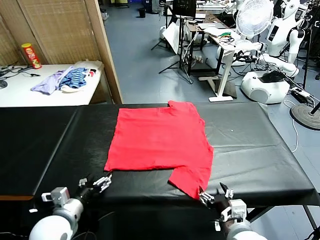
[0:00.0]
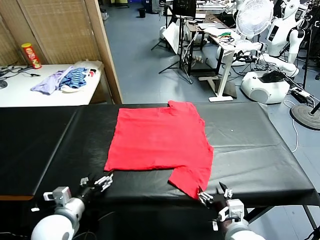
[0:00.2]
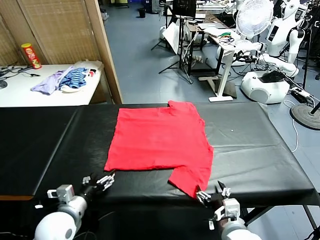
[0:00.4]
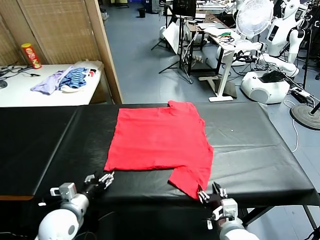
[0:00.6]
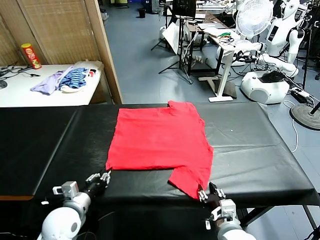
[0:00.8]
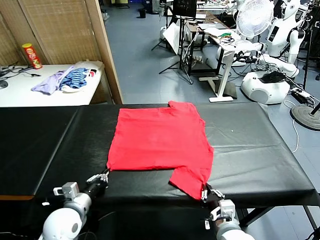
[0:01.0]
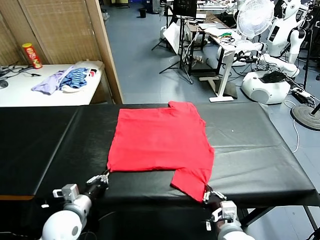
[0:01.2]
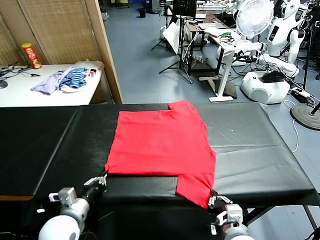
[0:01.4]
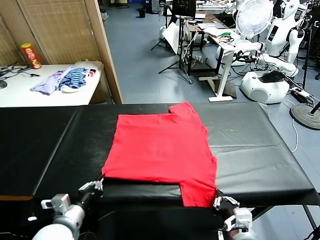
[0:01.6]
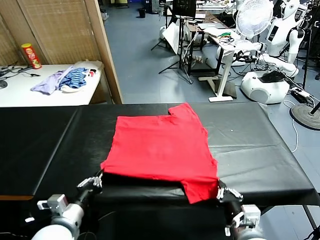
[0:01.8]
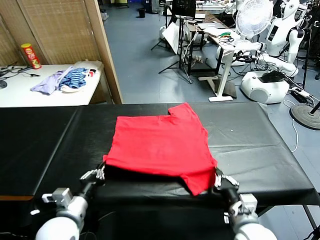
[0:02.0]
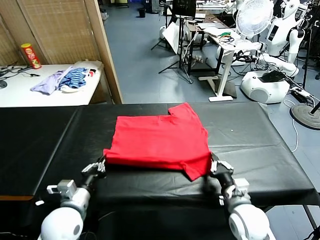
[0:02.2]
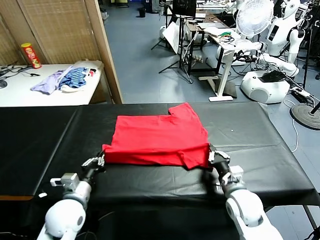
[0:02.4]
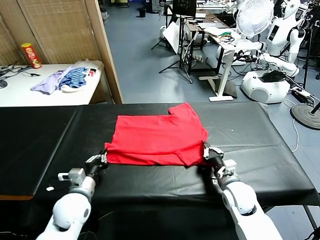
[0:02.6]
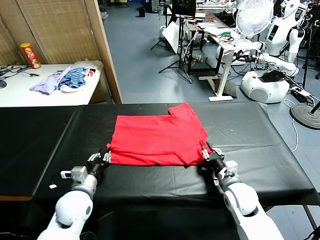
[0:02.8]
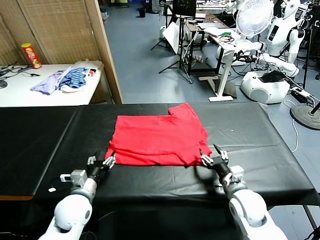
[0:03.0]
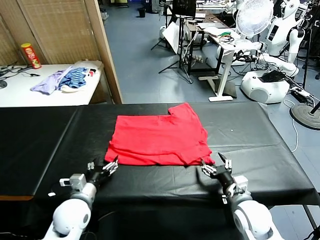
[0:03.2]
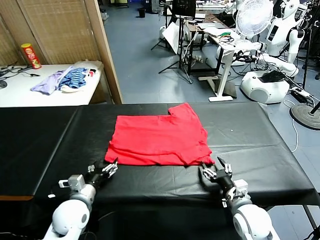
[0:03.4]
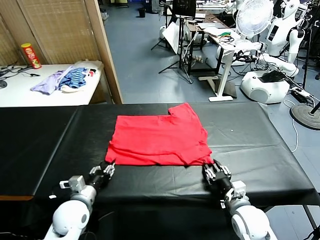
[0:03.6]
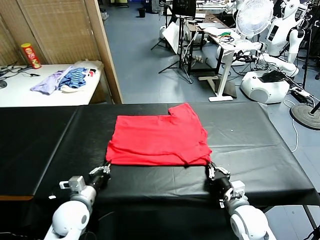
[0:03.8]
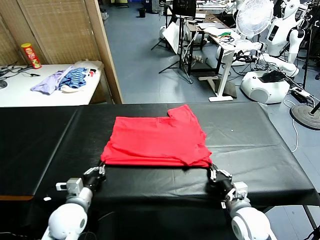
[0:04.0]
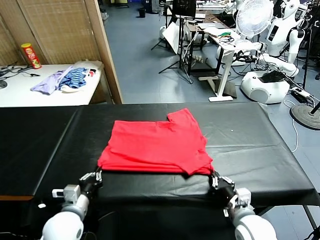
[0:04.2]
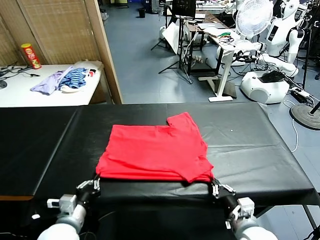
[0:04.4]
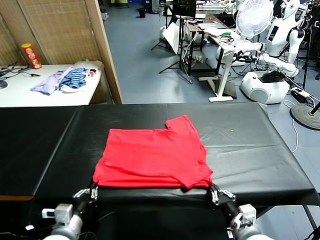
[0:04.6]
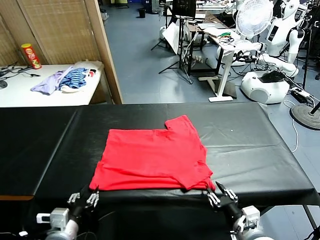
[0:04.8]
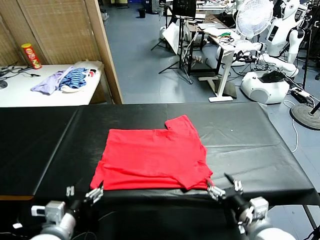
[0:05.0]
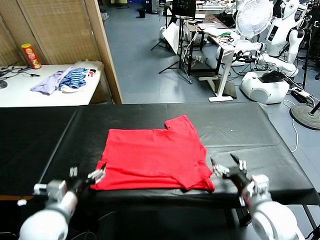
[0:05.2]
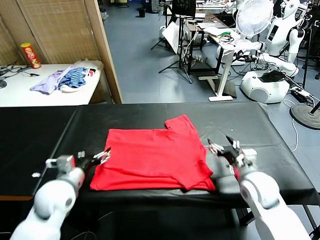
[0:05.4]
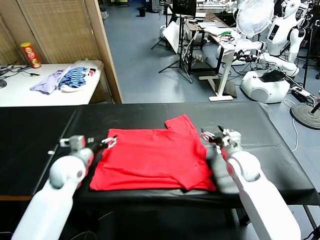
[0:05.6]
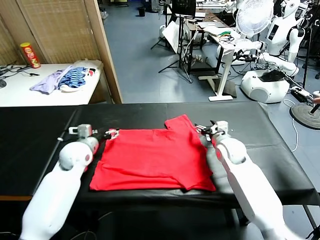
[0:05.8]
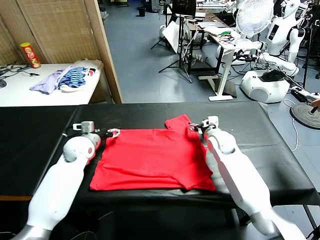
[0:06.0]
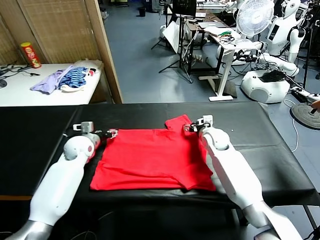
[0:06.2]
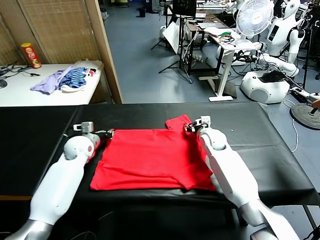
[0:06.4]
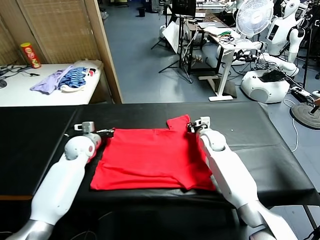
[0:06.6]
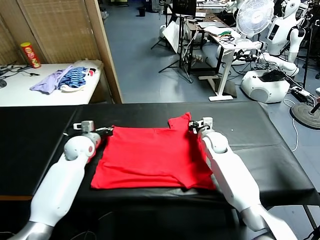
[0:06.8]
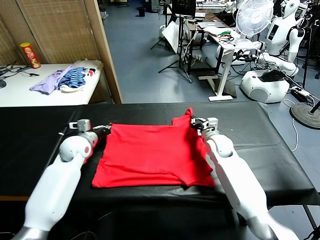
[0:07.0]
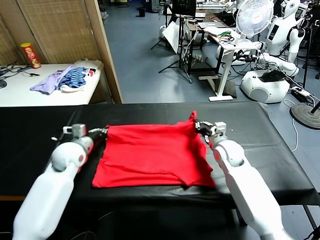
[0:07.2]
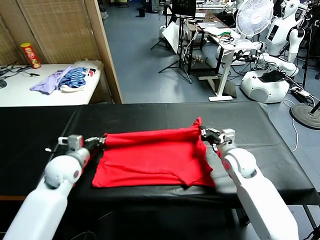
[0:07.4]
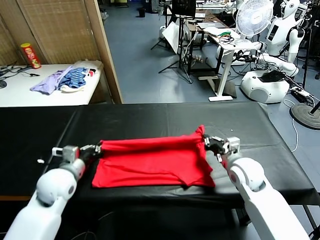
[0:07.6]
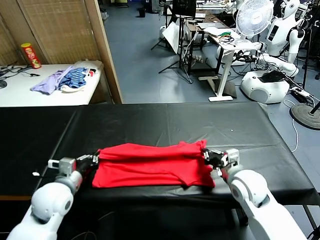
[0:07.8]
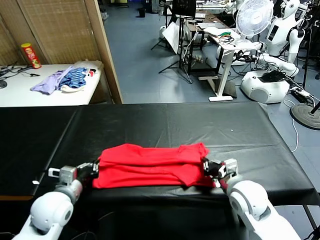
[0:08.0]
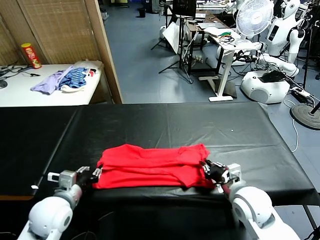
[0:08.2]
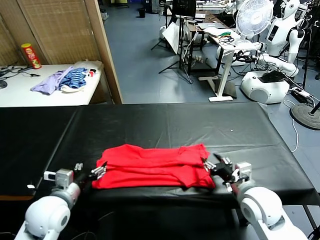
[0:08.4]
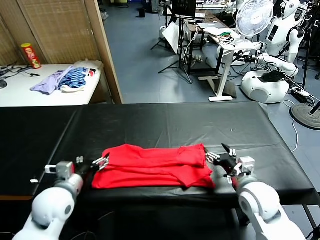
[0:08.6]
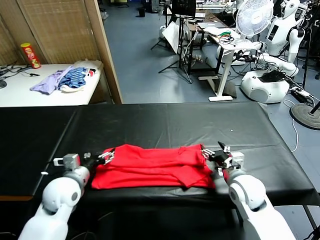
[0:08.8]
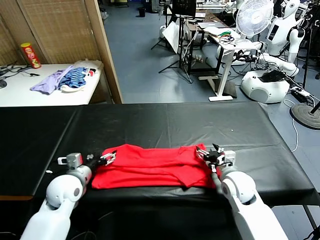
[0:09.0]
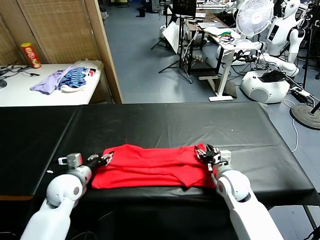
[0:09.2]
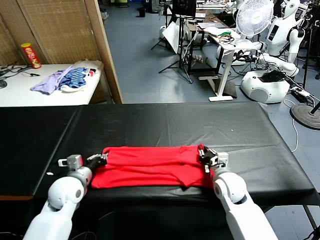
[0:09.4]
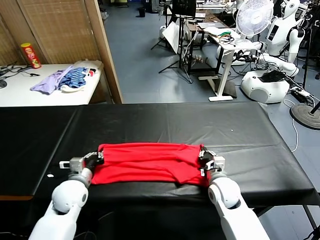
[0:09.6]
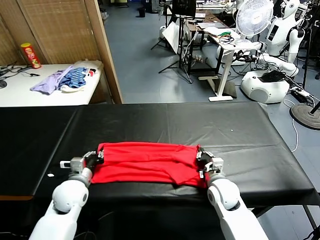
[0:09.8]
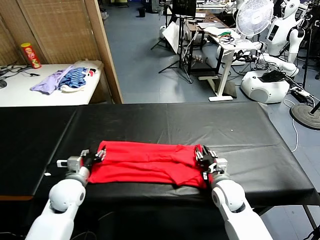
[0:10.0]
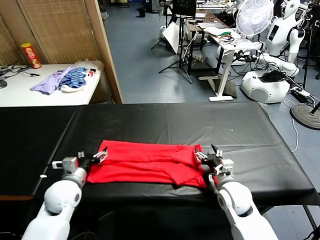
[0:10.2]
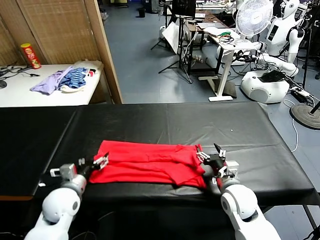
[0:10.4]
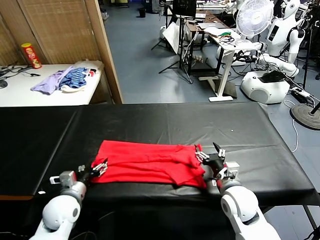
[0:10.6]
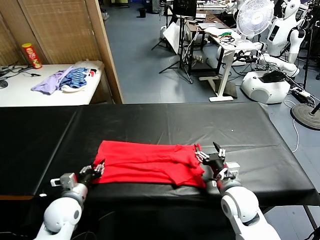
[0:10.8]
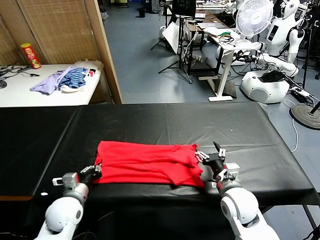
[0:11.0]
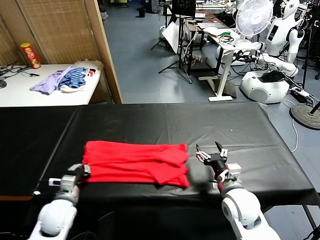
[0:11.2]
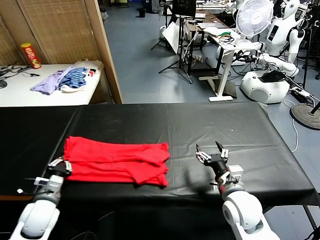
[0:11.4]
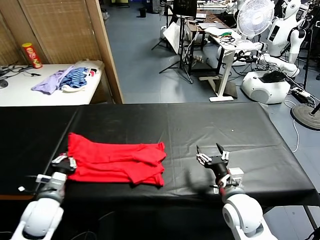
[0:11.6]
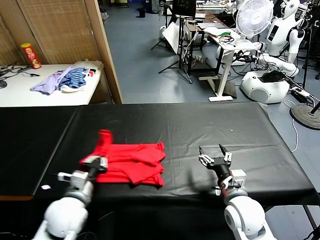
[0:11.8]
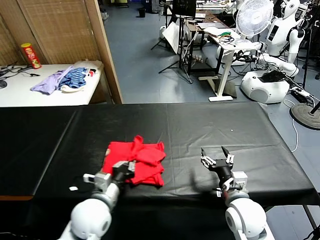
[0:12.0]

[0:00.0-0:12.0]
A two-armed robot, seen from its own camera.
Task of the whole recording: fold and organize the clothes.
Step, 0:00.0 to 0:01.4: use both grippers simultaneously to clamp the lower edge of the clothing fabric.
Step, 0:01.6 to 0:03.0: use both grippers to drag the lower edge of the fabric forward and fold it over the upper edge.
Step, 0:03.2 to 0:04.8: Drag the clothes downward with both gripper.
Step, 0:05.0 to 0:06.8: use both grippers simultaneously to clamp the upper edge of the clothing fabric.
Step, 0:07.0 to 0:08.4: use both grippers to drag the upper edge of the fabric backward and fold it over the lower edge.
Step, 0:08.6 to 0:11.2: use the left gripper to clamp the left edge of the fabric.
0:01.6 to 0:03.0: Both grippers travel together forward, roughly 5 cm. The right gripper opens up; the left gripper opens.
0:03.0 to 0:04.4: Both grippers move backward, some 10 cm. The right gripper closes; the left gripper closes its fingers.
0:04.4 to 0:06.0: The grippers both shift forward by roughly 35 cm. The right gripper opens, while the left gripper opens up.
0:06.0 to 0:07.6: The two grippers go roughly 20 cm backward. The left gripper closes up. The right gripper closes.
0:07.6 to 0:09.0: The left gripper travels backward and back again, some 5 cm each way, and opens its fingers. Meanwhile the right gripper travels downward by about 5 cm, and opens its fingers.
0:09.0 to 0:10.4: The left gripper closes, then reopens. The right gripper moves backward, roughly 5 cm, and closes and opens again.
0:10.4 to 0:12.0: The left gripper goes roughly 15 cm to the right, and closes up.

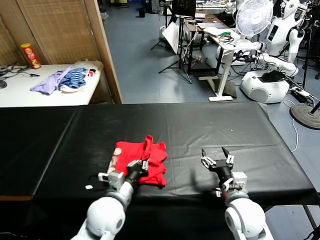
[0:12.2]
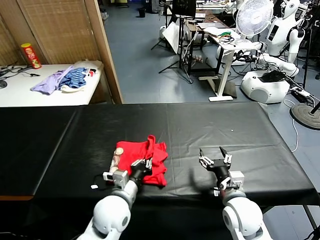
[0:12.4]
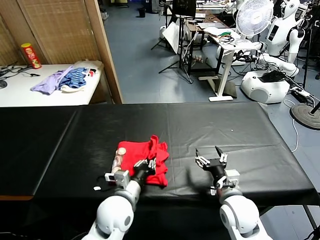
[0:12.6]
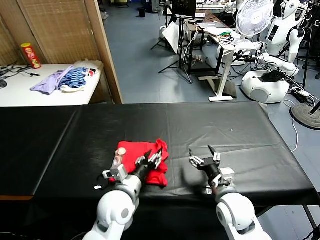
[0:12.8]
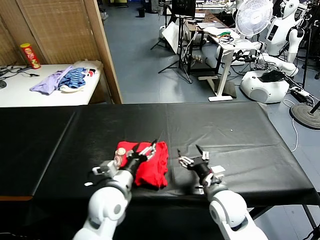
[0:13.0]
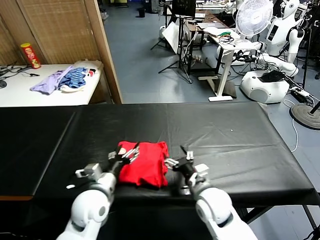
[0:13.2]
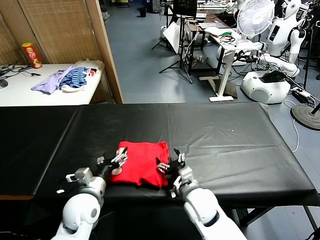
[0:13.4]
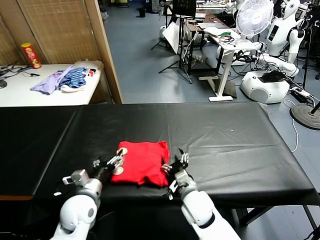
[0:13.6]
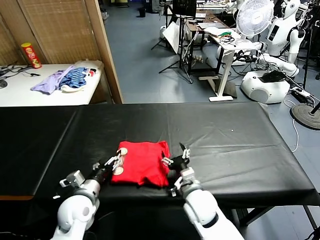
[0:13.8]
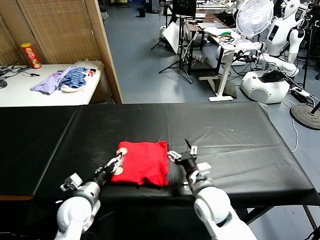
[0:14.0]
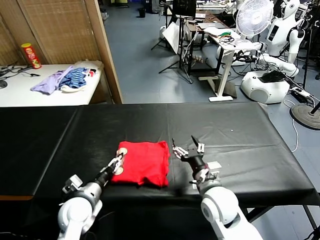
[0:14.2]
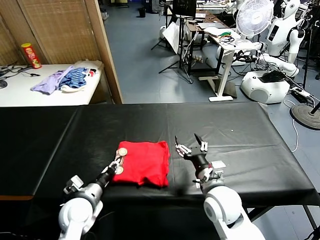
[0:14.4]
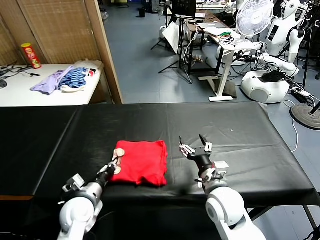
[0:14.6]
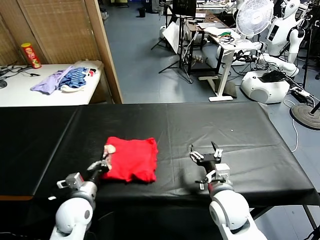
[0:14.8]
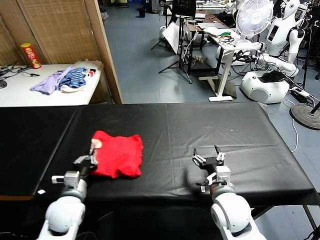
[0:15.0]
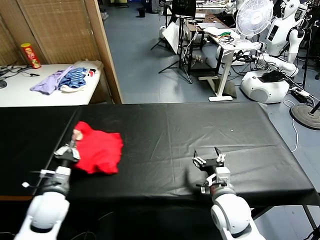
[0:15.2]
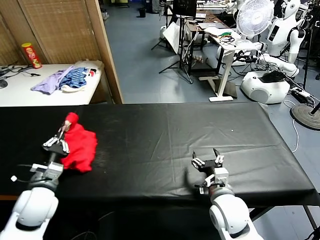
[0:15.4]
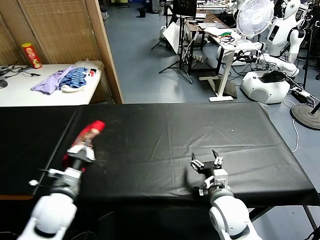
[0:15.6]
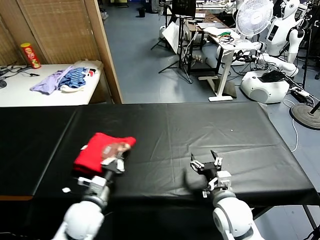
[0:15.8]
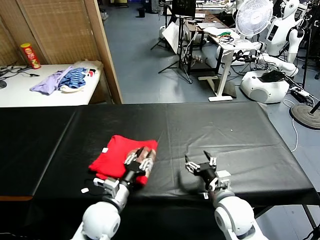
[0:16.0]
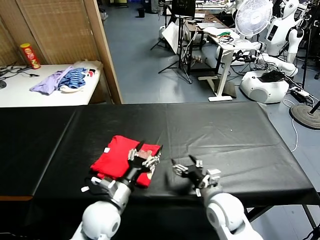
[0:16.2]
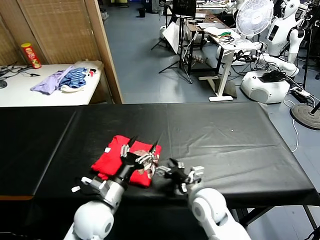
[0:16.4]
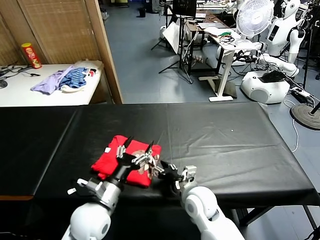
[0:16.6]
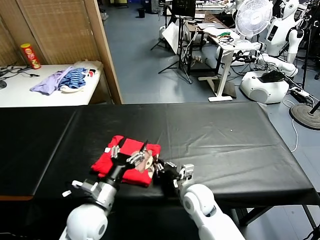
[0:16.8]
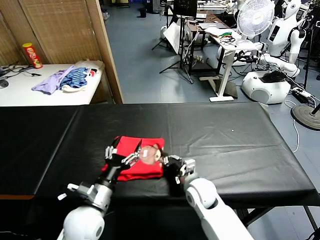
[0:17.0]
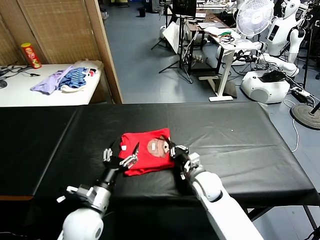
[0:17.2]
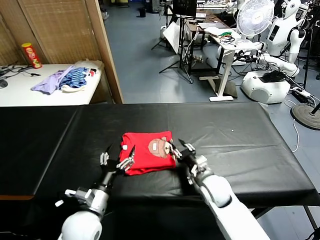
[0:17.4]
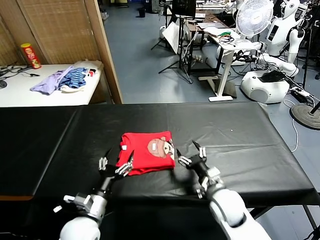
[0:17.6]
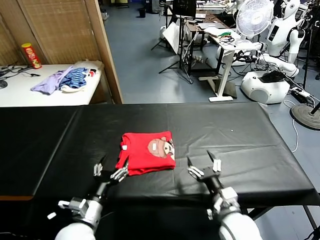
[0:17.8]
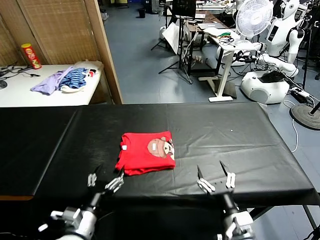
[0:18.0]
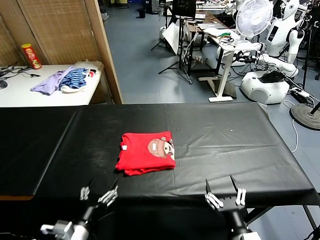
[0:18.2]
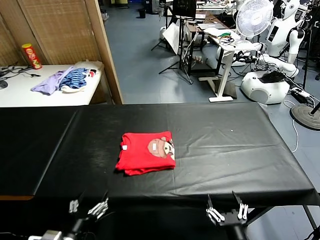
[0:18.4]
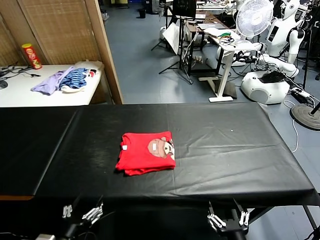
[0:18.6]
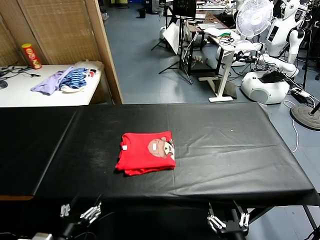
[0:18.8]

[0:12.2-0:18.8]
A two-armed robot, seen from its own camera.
Task of the whole recording: fold and organize the clothes.
Step, 0:13.0 to 0:16.0: Flip the folded clothes over with left gripper.
Step, 0:16.2 to 0:17.6: Drag the clothes to the center of the table.
0:12.2 to 0:13.8: Both grippers travel together to the left, some 10 cm. The left gripper opens up.
0:13.8 to 0:15.4: The left gripper is displaced to the left and upward by some 10 cm, and closes its fingers, while the right gripper heads to the right, covering approximately 5 cm.
0:15.4 to 0:17.2: The right gripper is displaced forward and downward by some 15 cm, and closes up. Meanwhile the left gripper is displaced to the right by approximately 15 cm, and opens.
0:17.2 to 0:18.8: The right gripper is displaced backward by roughly 30 cm, and opens. The left gripper shifts roughly 15 cm backward and to the left.
